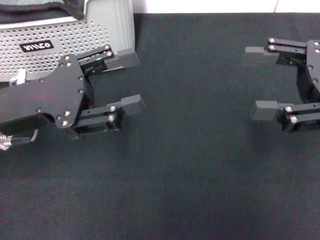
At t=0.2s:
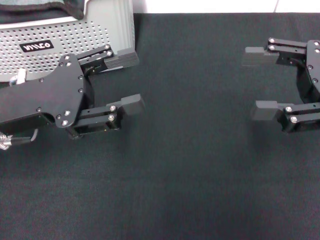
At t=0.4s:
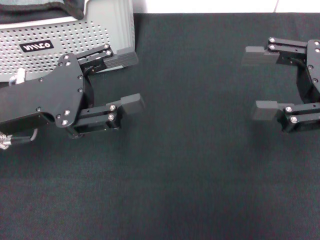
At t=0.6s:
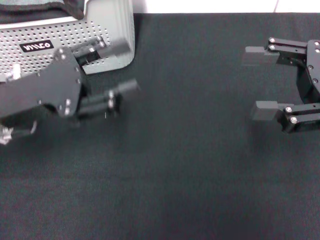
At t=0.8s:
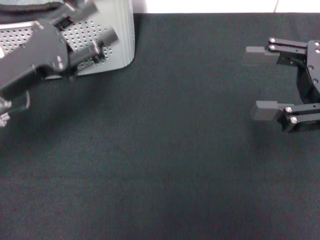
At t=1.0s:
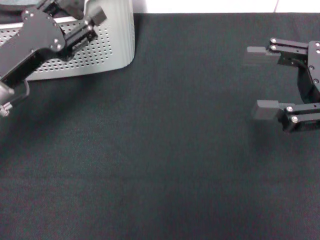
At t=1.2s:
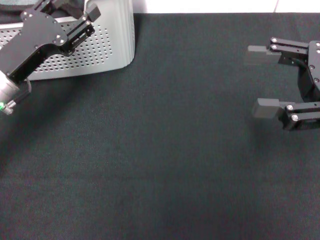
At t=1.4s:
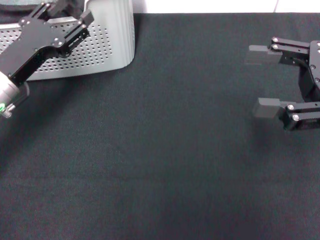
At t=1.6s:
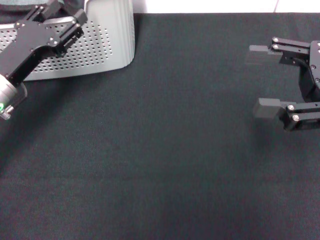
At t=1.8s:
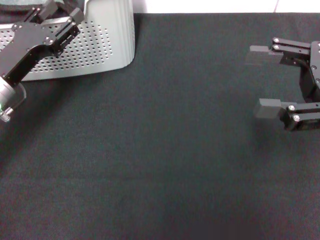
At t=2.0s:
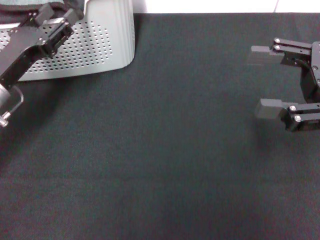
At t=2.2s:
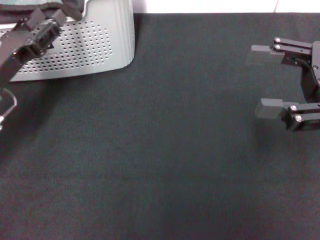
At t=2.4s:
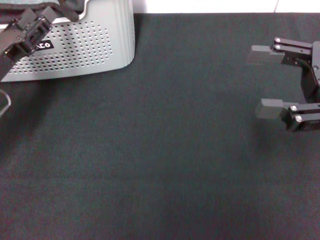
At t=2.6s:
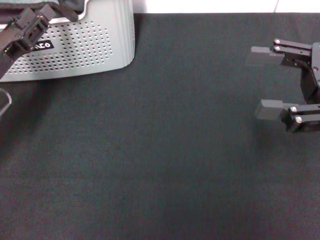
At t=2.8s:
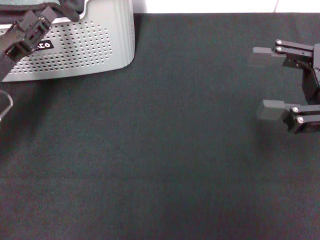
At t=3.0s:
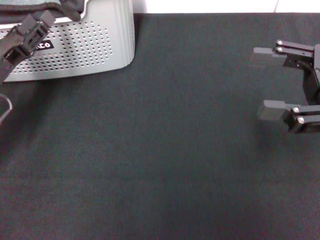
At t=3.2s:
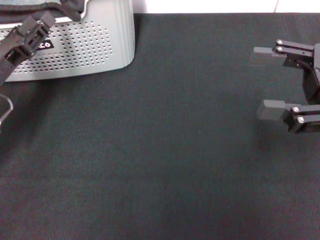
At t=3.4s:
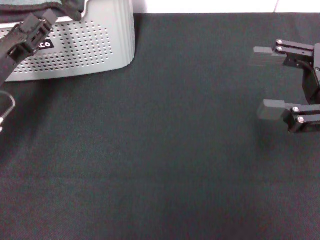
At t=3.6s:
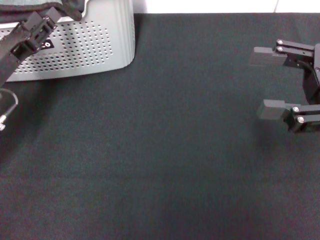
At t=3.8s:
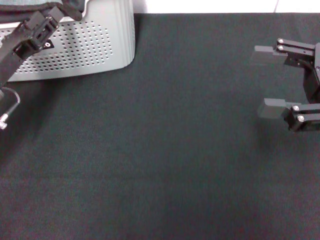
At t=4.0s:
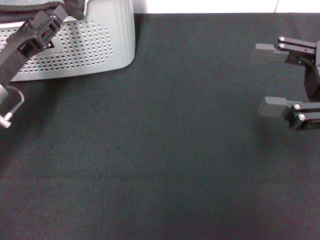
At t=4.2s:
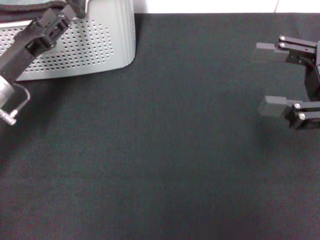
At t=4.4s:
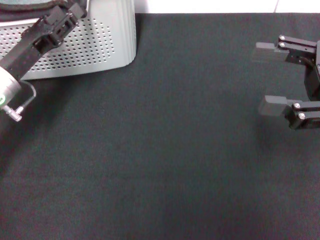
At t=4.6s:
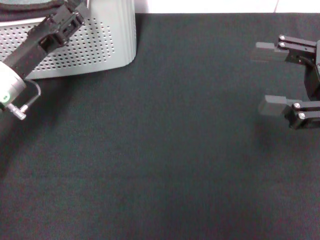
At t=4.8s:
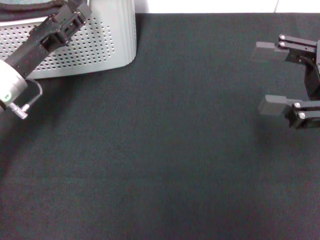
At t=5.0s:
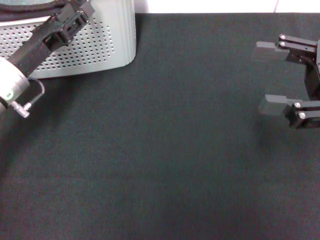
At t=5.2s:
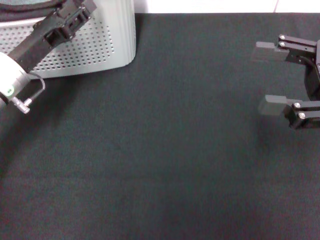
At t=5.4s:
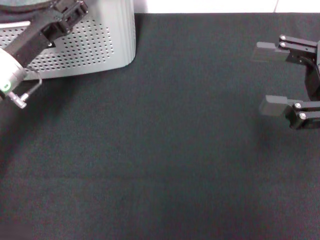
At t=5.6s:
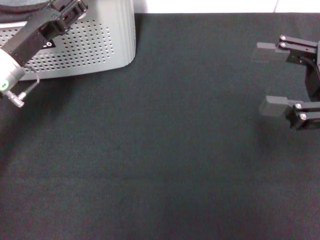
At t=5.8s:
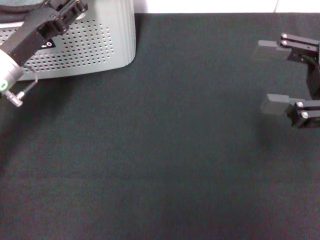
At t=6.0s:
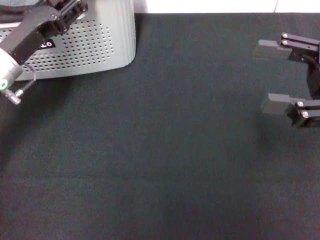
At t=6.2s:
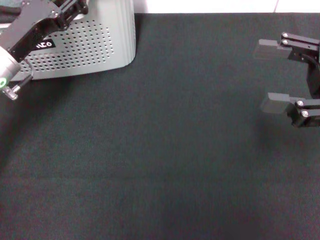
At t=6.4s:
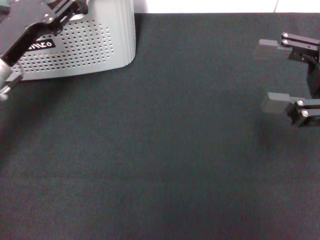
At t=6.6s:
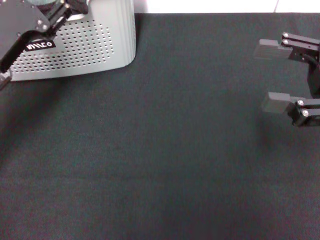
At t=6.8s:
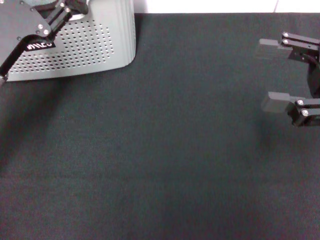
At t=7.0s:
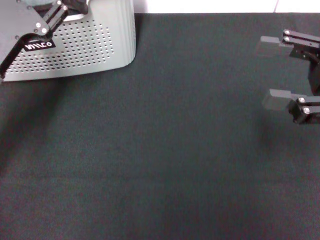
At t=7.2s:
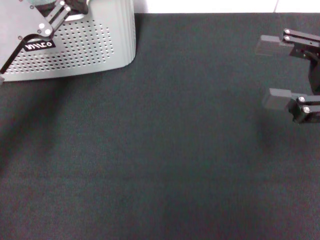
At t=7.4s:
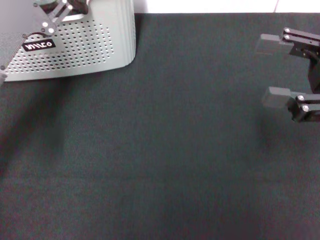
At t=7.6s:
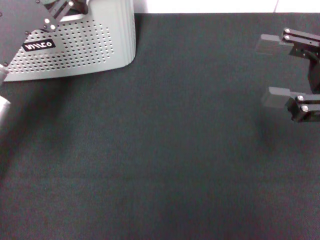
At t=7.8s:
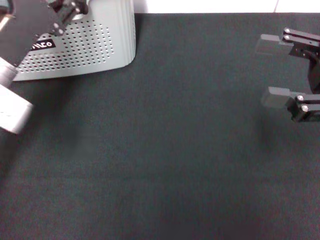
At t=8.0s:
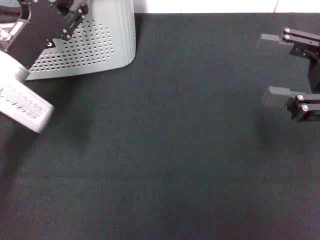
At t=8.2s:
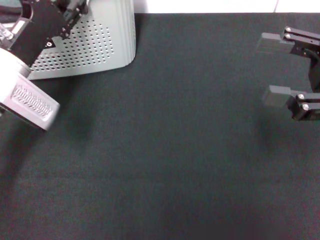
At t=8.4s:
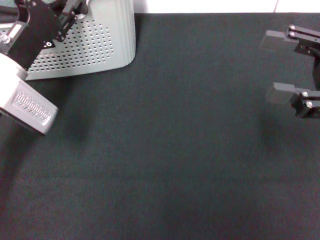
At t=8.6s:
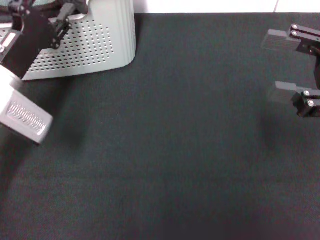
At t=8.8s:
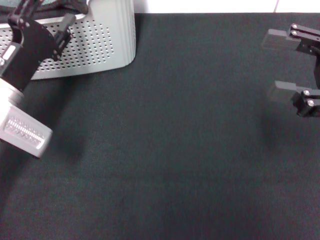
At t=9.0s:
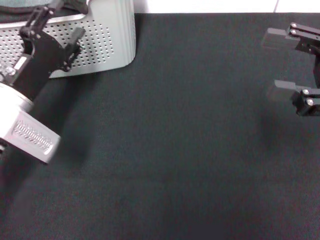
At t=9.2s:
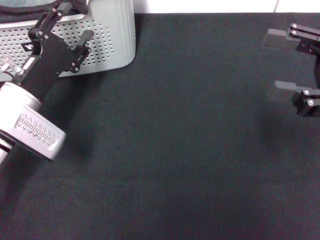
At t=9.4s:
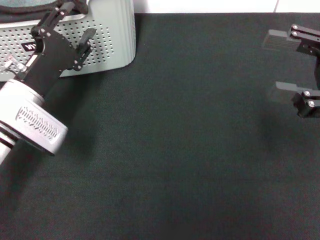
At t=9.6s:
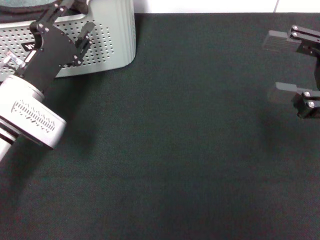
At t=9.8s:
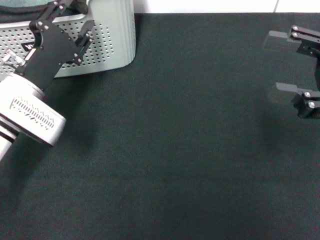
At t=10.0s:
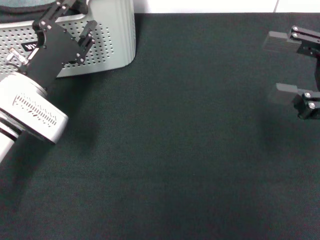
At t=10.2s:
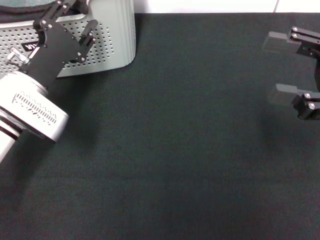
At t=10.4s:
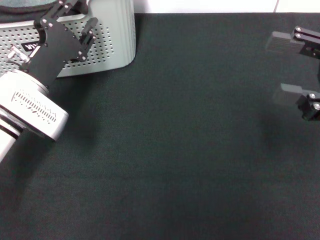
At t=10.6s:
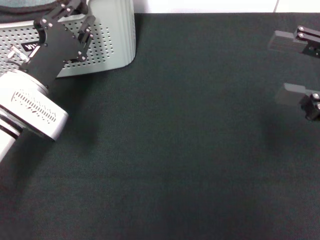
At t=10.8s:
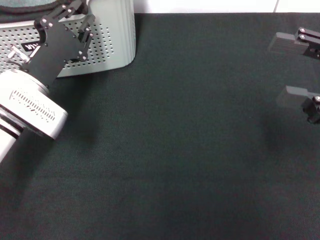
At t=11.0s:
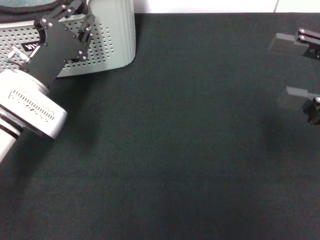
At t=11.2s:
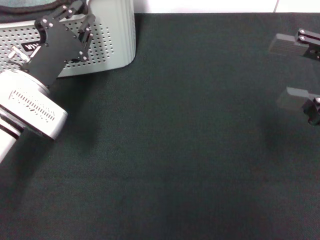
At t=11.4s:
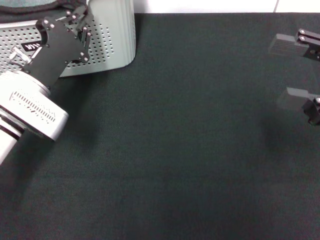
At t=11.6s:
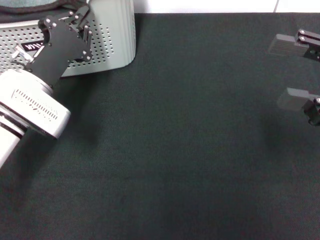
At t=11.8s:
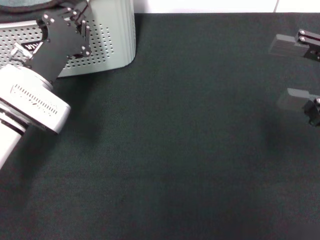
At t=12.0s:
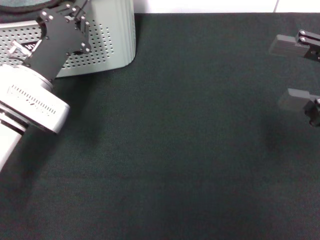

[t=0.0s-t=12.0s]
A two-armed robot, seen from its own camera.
Task of the whole recording: pick up the towel from the storage box and lay it flat on the black tablecloth.
Step, t=0.0s to t=11.8s: Pick up a towel with the left gripper.
t=0.0s to t=1.6s: The left gripper travels downward and forward by about 10 cm.
t=3.0s to t=6.0s: The grippers make only small movements.
t=7.6s to t=9.0s: The left gripper goes approximately 5 cm downward.
t=9.0s to t=10.4s: The grippers move only a little.
t=10.4s to t=12.0s: The left gripper closes its fingers.

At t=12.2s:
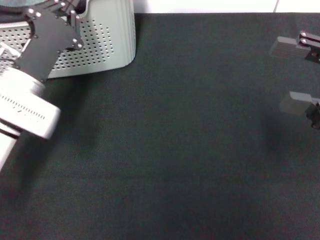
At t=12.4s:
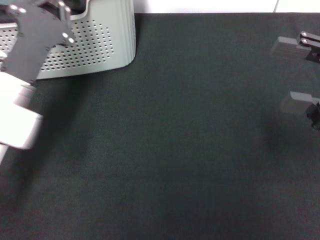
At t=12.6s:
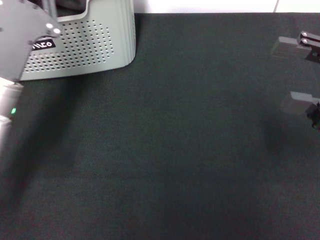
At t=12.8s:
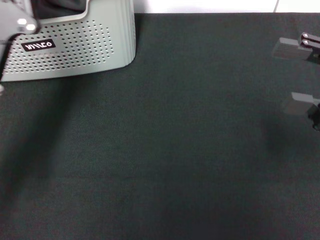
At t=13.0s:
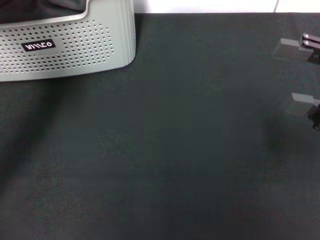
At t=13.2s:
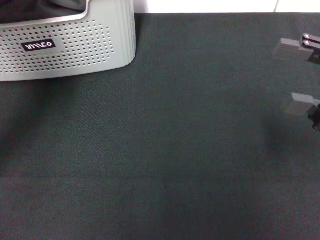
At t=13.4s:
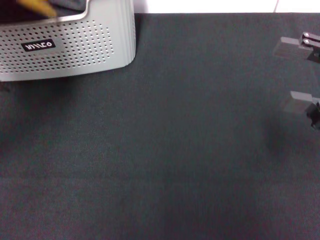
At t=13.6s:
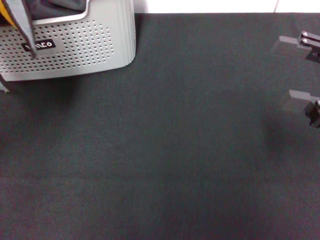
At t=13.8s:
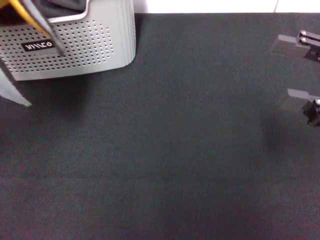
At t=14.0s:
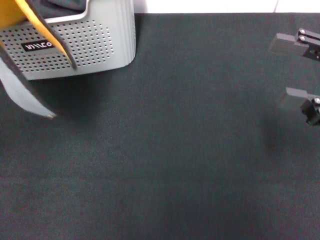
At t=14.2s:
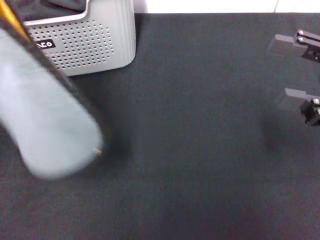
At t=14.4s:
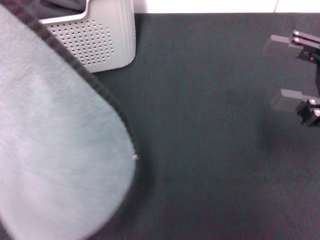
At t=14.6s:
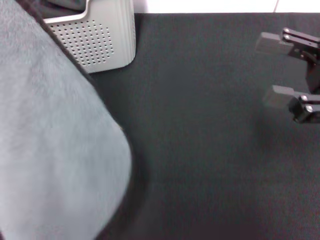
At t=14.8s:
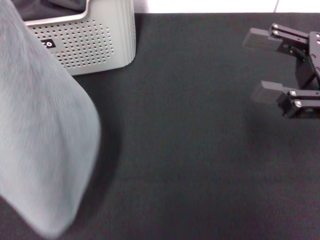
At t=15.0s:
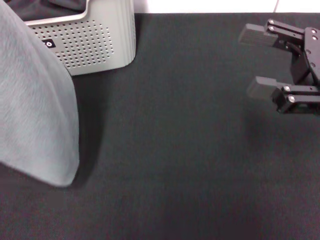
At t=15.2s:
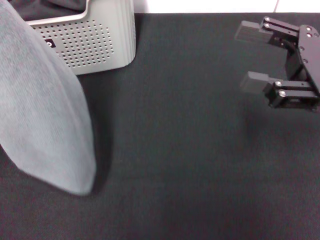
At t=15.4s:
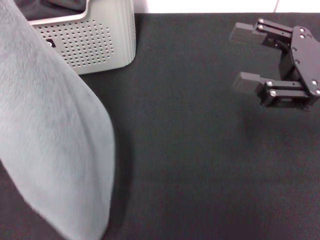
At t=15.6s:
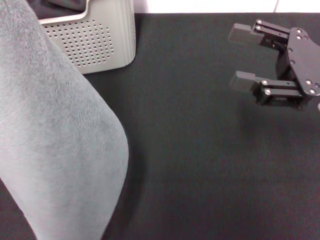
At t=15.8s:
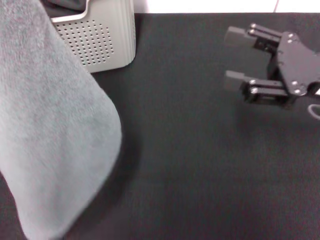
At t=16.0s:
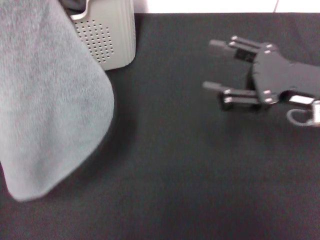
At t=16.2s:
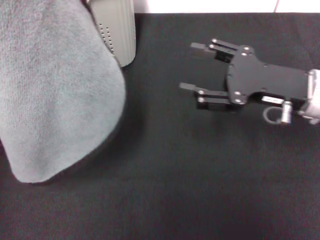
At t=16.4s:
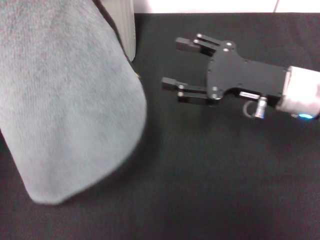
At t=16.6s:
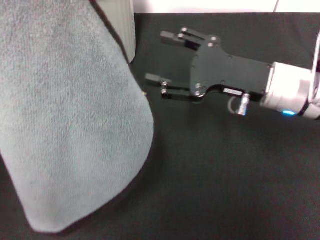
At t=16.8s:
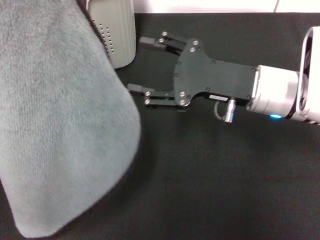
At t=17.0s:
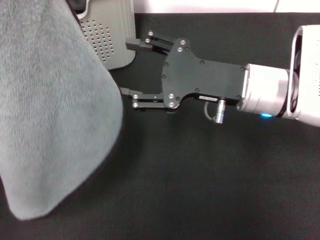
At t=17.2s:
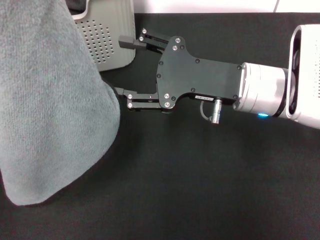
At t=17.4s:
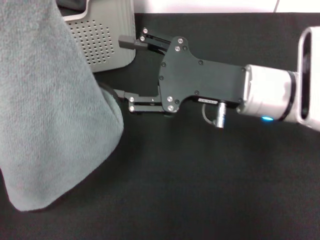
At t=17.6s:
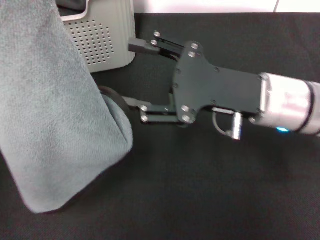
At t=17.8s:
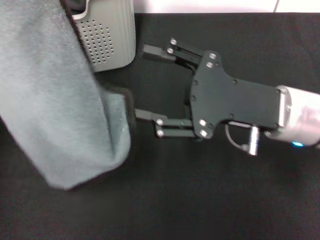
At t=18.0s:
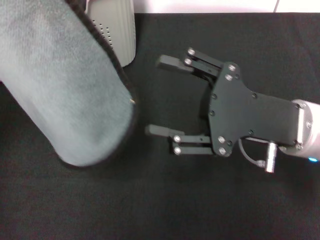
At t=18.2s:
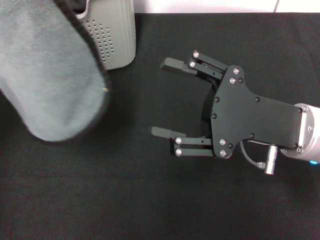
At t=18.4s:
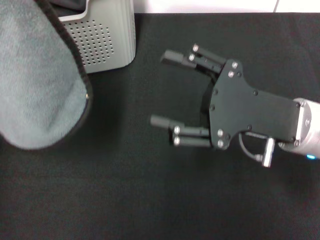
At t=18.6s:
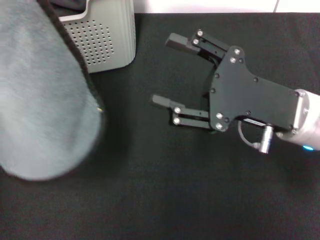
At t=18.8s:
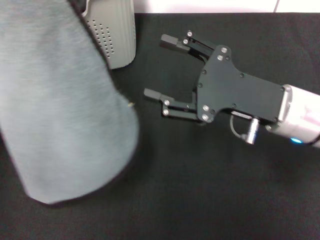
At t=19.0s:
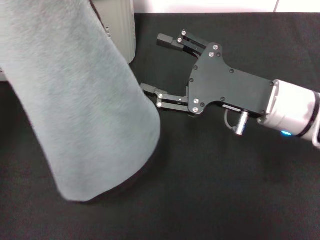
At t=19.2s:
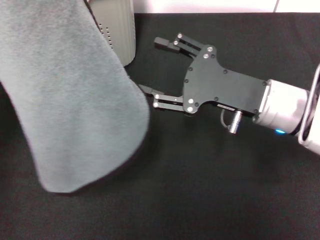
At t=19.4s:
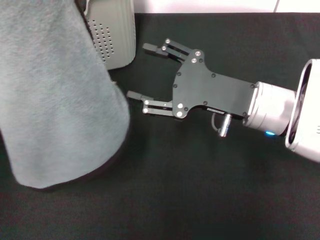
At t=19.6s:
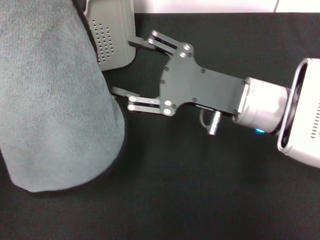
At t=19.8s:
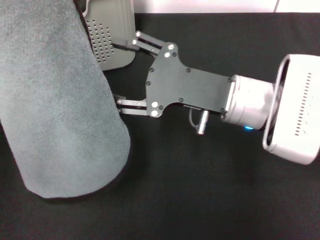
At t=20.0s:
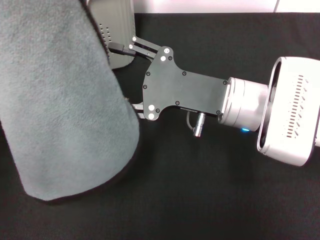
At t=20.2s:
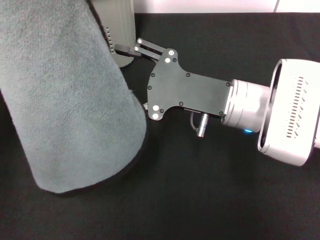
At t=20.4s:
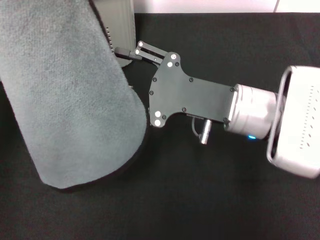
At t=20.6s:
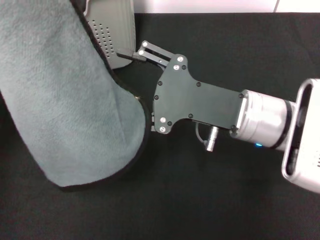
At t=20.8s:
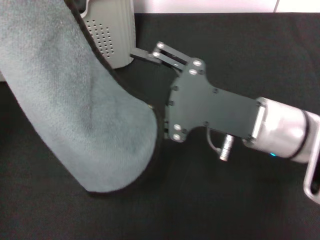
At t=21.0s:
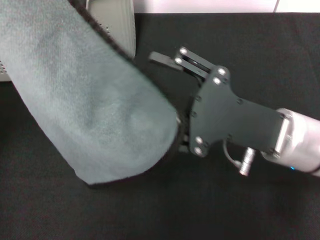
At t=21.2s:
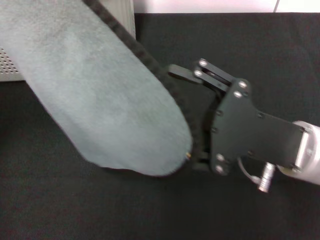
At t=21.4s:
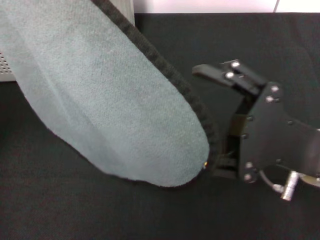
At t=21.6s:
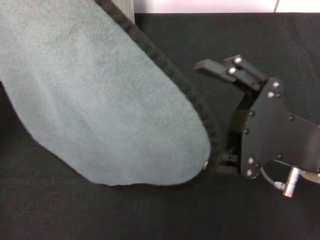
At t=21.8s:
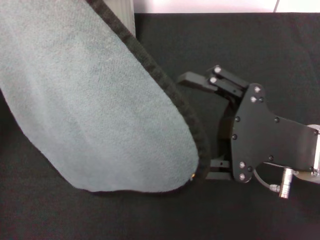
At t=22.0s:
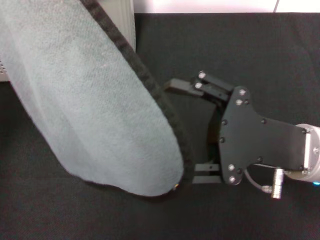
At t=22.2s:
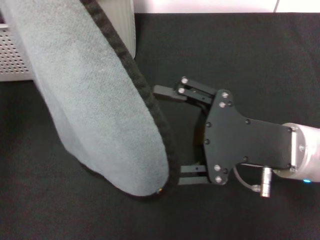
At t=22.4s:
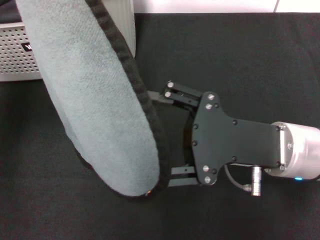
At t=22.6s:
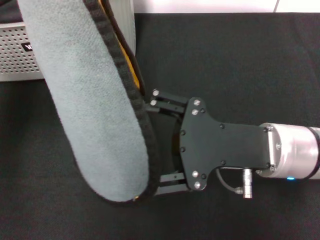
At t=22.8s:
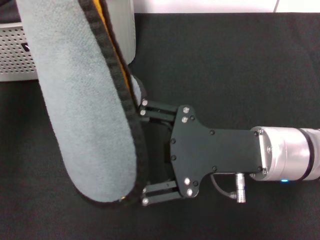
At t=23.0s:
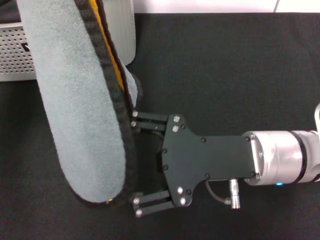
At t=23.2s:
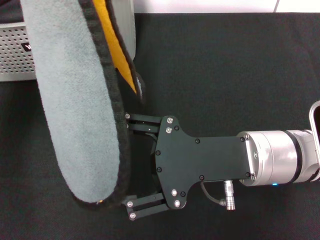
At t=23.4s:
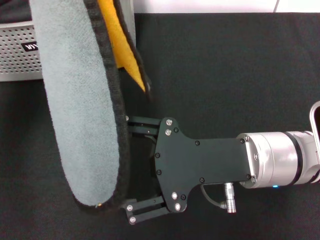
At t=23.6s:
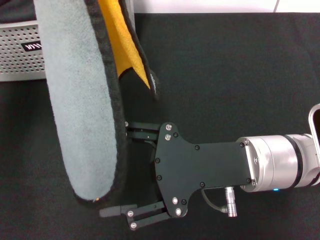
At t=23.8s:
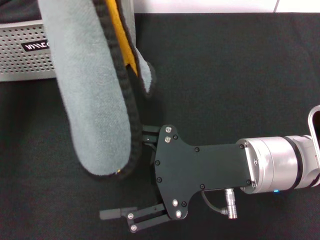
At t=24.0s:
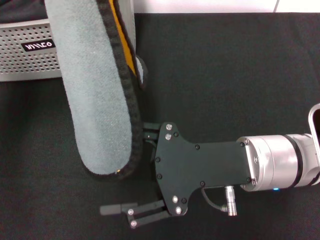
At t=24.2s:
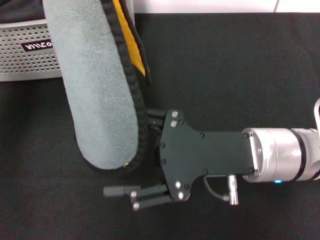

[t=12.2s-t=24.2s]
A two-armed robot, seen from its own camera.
Task of the whole recording: pick up the towel from the storage box and lay it flat on the black tablecloth.
t=12.2s to t=13.8s: The left gripper goes roughly 15 cm upward, to the left and backward.
t=15.2s to t=16.6s: The left gripper moves approximately 5 cm, while the right gripper travels to the left and downward by about 10 cm.
t=16.6s to t=18.2s: The right gripper goes some 5 cm backward.
t=18.2s to t=19.8s: The right gripper goes some 5 cm to the left.
t=19.8s to t=21.2s: The right gripper moves backward and to the right, approximately 10 cm.
